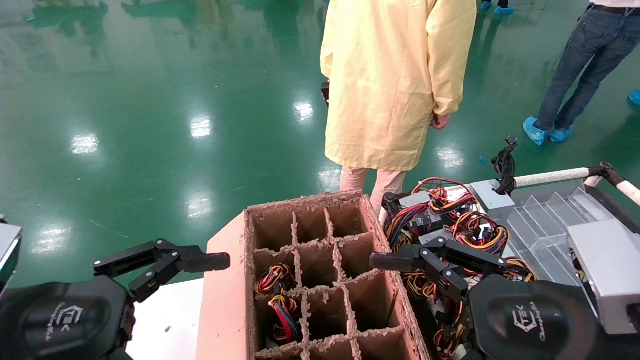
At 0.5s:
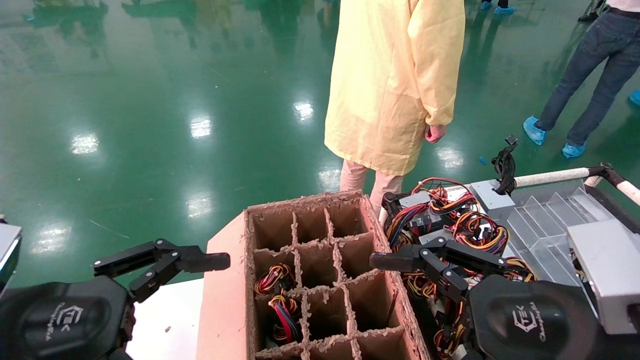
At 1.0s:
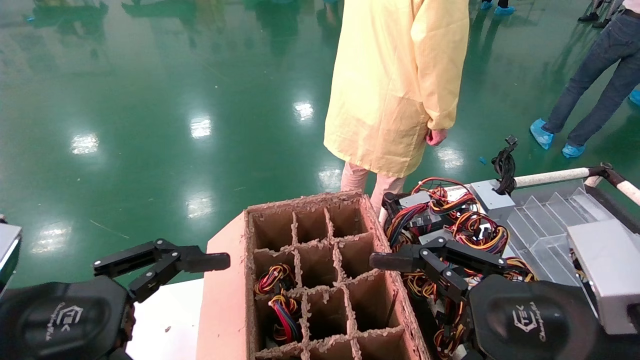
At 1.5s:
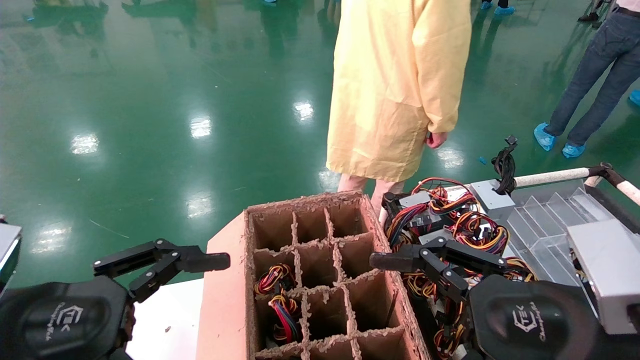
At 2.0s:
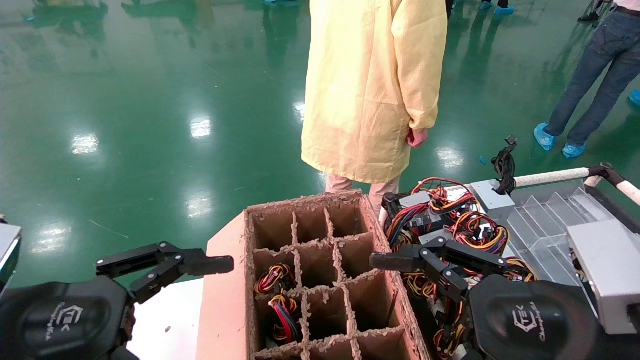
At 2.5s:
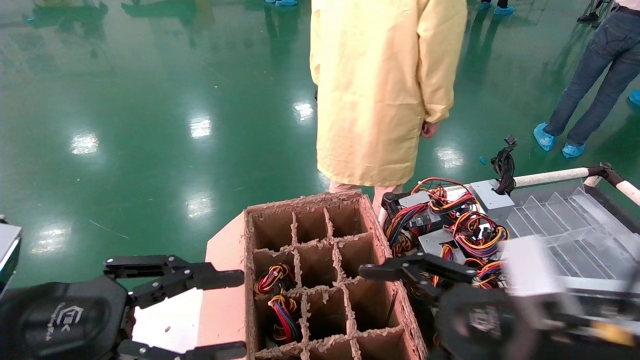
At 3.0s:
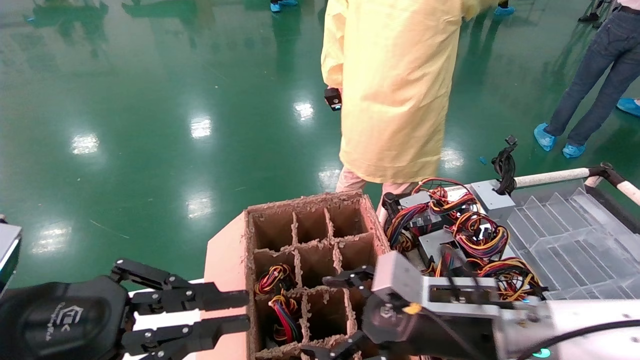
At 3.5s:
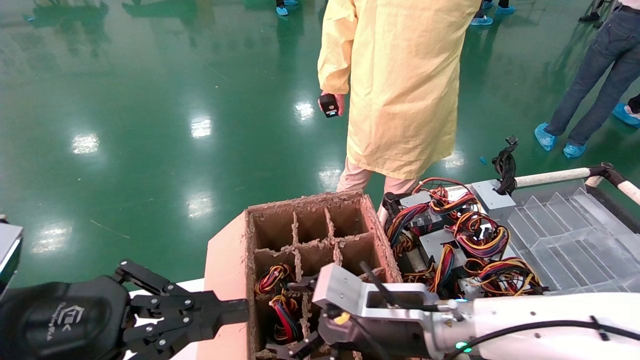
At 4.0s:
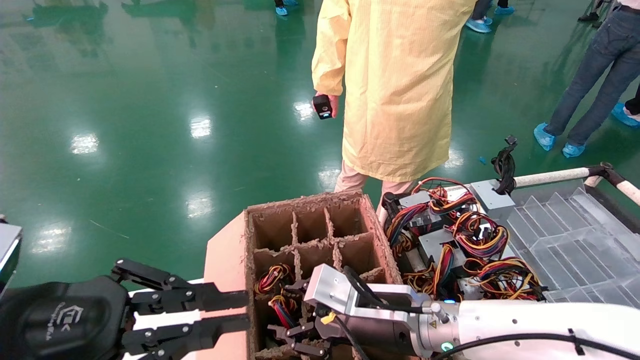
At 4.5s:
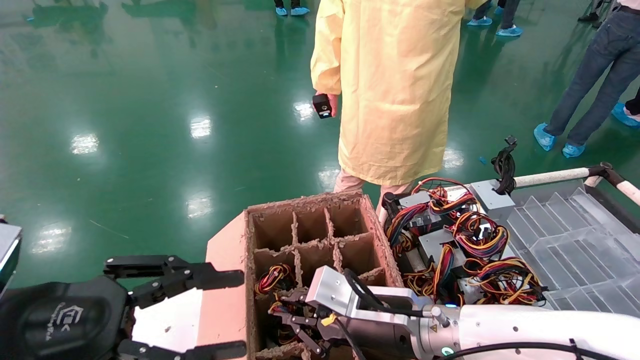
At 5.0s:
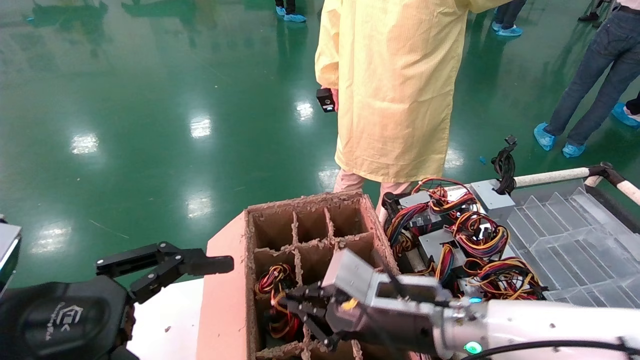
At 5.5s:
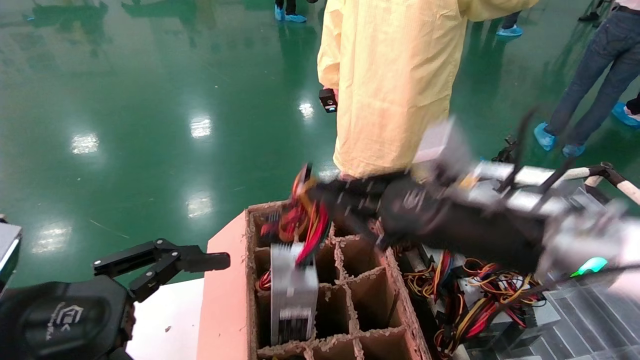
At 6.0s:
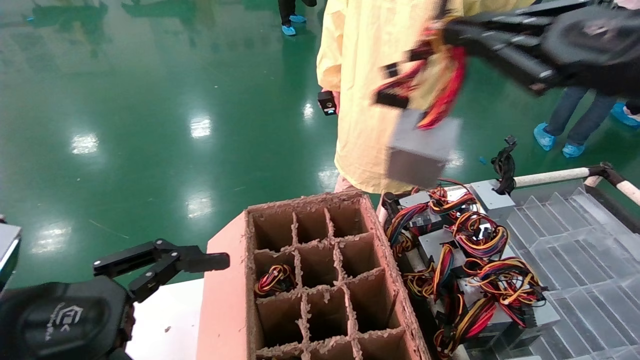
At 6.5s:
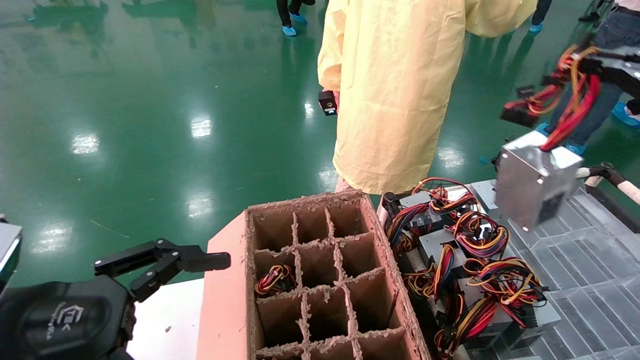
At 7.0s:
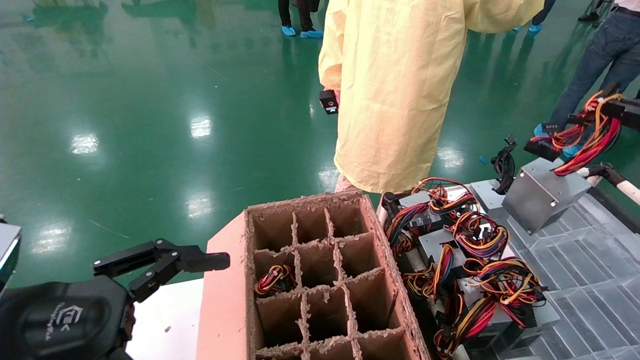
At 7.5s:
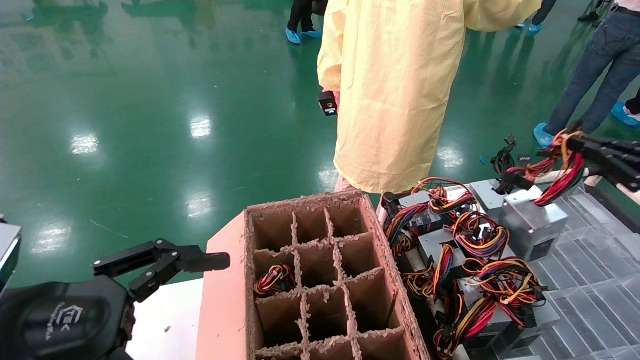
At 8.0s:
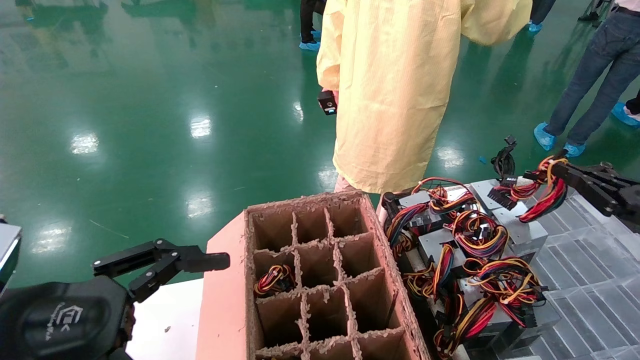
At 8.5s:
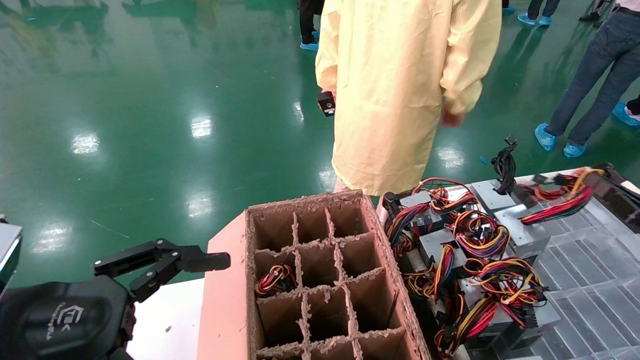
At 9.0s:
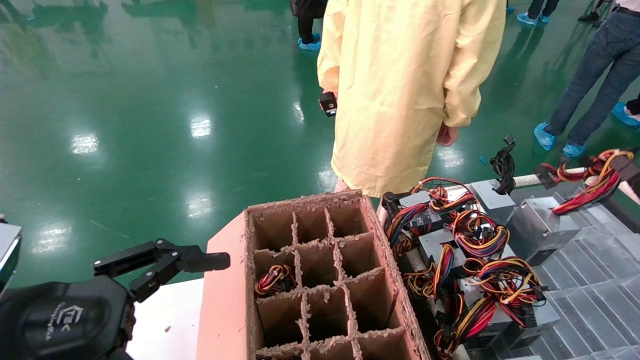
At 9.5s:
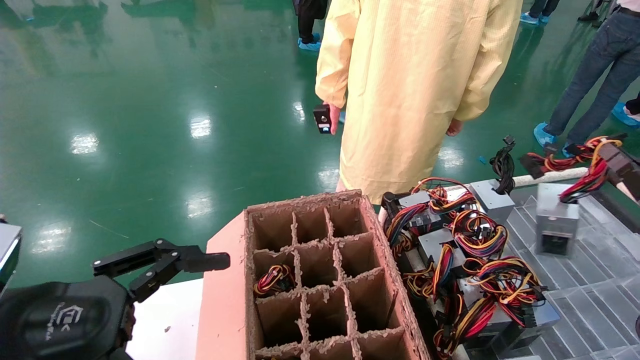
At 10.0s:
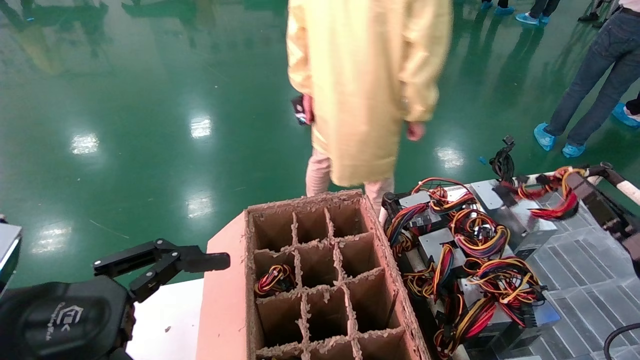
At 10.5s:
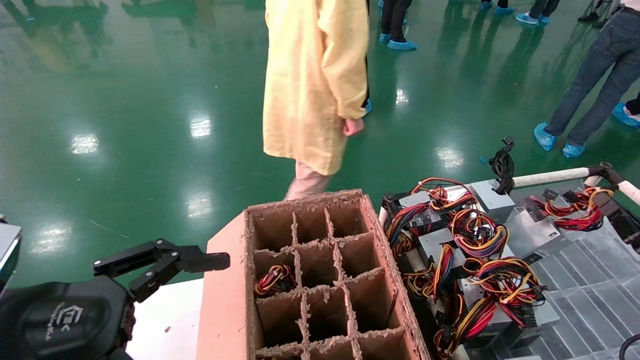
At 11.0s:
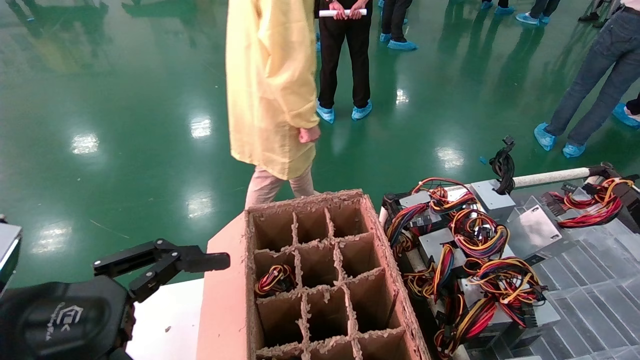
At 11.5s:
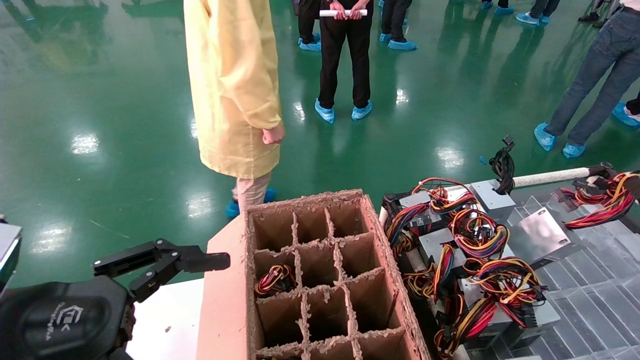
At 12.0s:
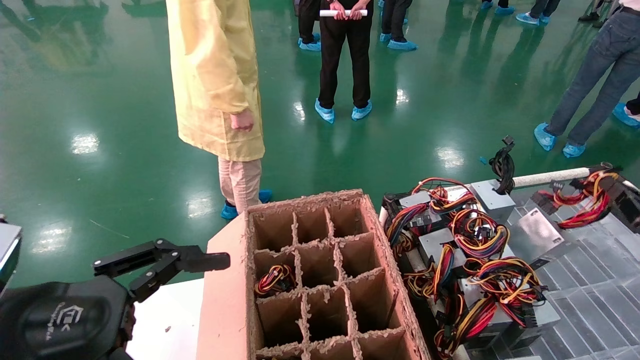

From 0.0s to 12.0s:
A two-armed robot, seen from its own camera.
Step, from 3.0s to 5.0s: Grab and lift the power supply from the large box.
From 0.0s to 2.0s: Both grippers stay put.
From 2.0s to 4.0s: The left gripper closes its fingers, while the right gripper is displaced forward, to the left and downward by about 25 cm, and closes.
From 4.0s to 6.0s: The left gripper opens. The right gripper travels upward and to the right by roughly 35 cm, and closes.
From 6.0s to 8.0s: The right gripper shifts some 25 cm downward and to the right.
From 8.0s to 10.0s: The right gripper moves downward, some 10 cm.
From 10.0s to 12.0s: The right gripper moves some 5 cm.

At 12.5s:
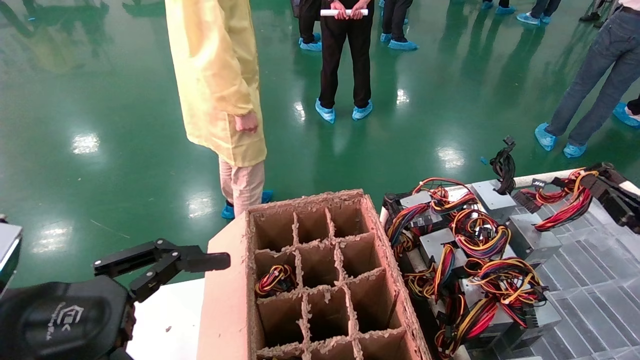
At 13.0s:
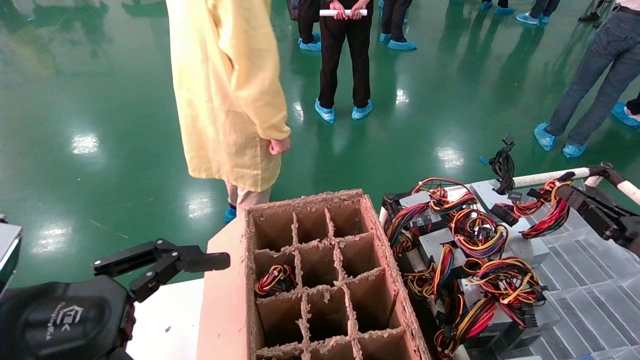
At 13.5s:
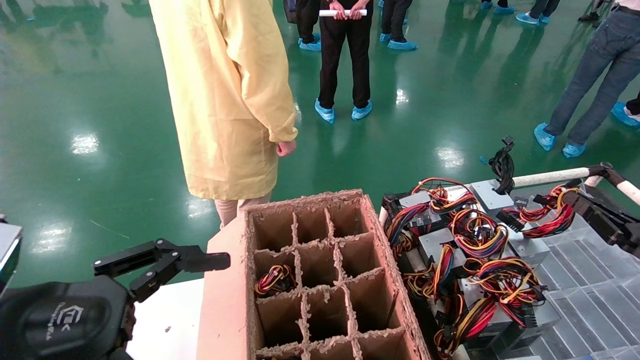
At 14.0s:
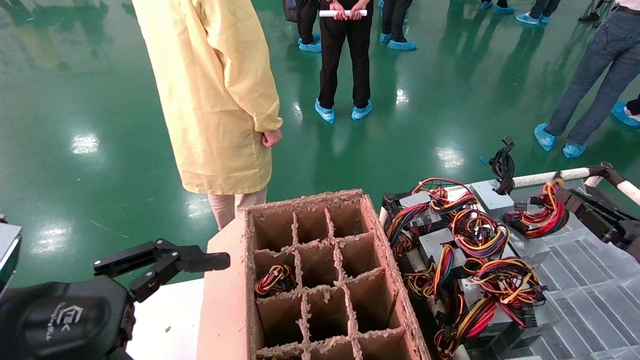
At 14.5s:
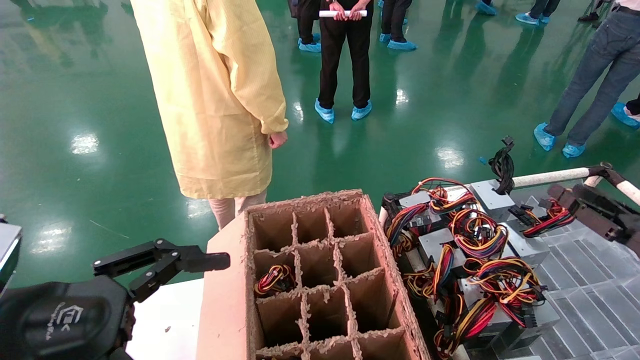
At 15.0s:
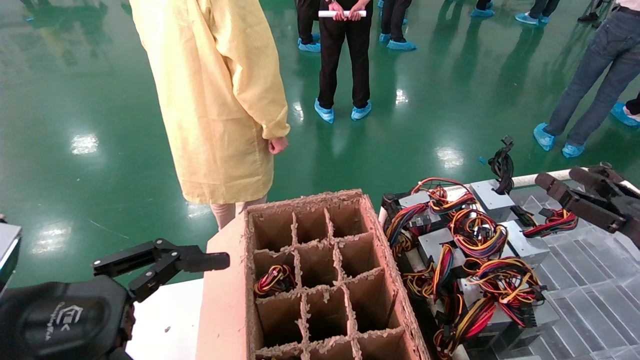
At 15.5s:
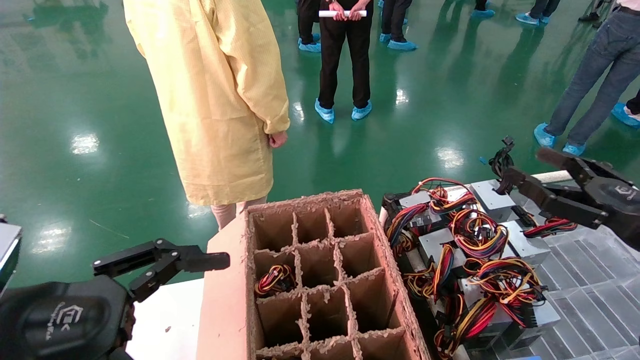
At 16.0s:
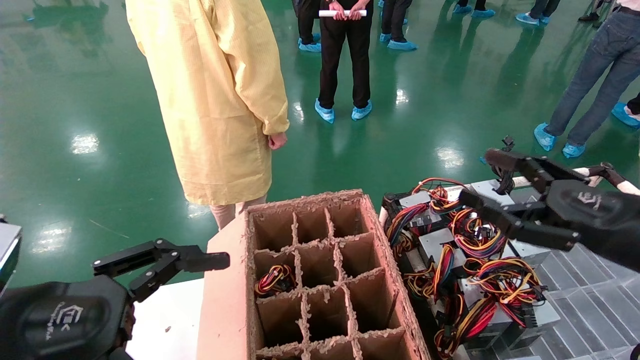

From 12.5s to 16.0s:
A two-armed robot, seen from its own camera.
From 12.5s to 14.5s: The right gripper opens its fingers.
From 14.5s to 16.0s: The right gripper goes approximately 15 cm to the left and upward, and opens up.
